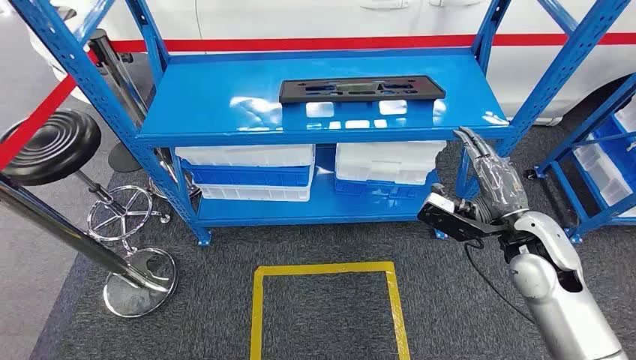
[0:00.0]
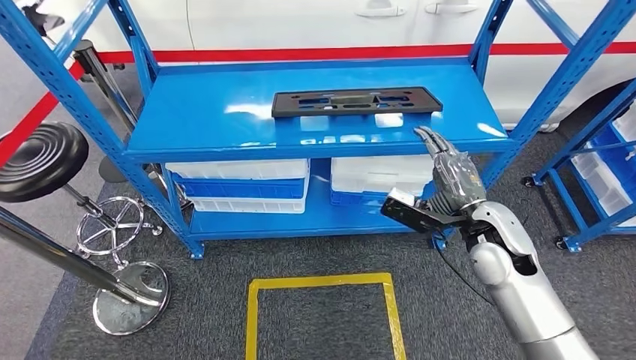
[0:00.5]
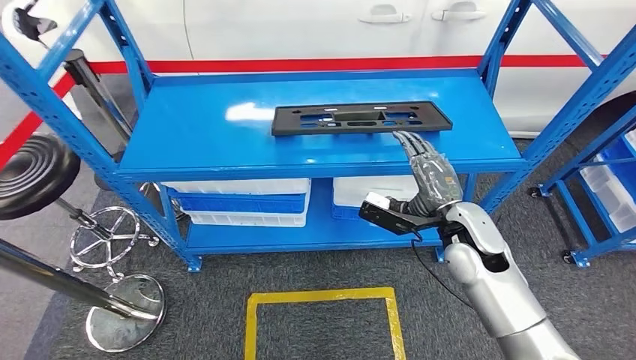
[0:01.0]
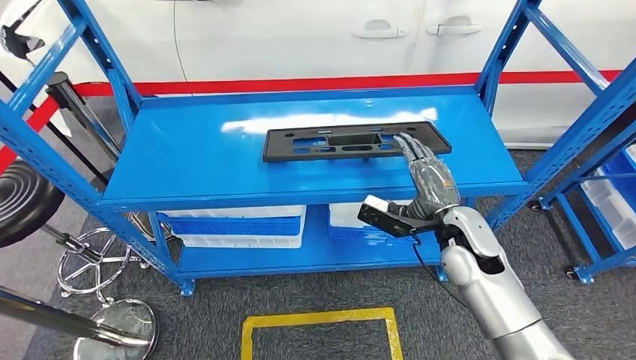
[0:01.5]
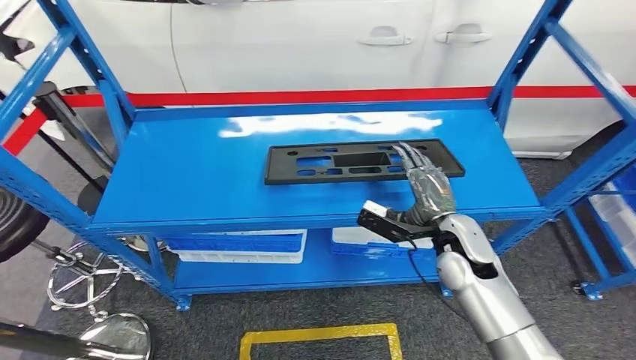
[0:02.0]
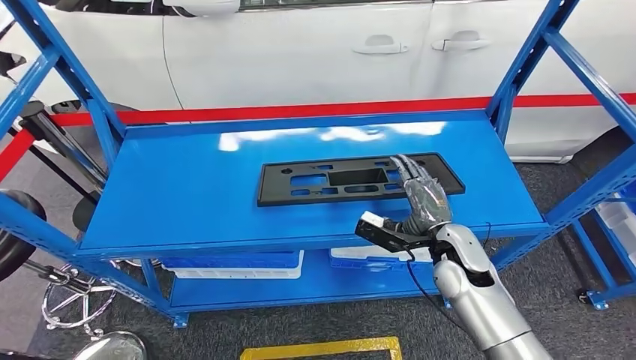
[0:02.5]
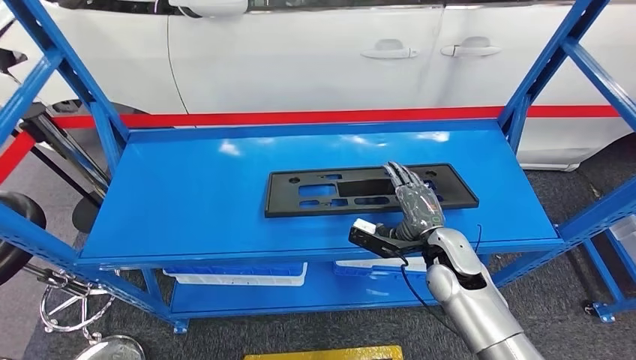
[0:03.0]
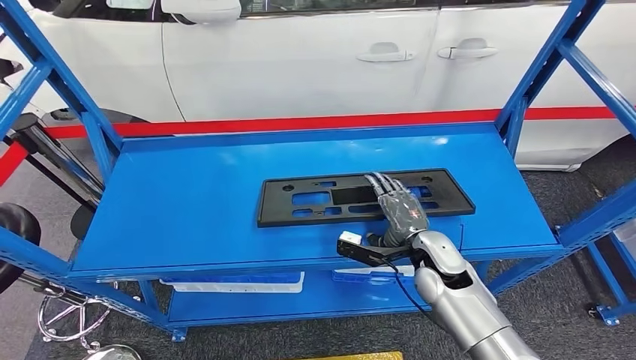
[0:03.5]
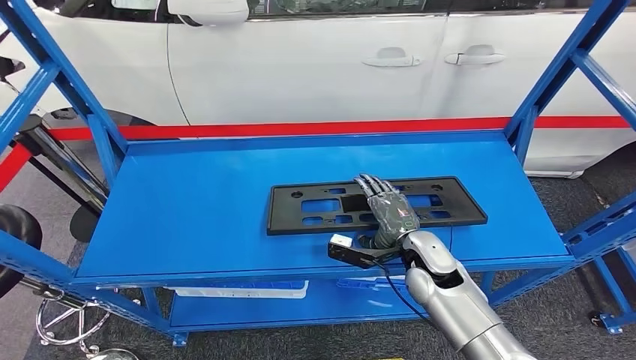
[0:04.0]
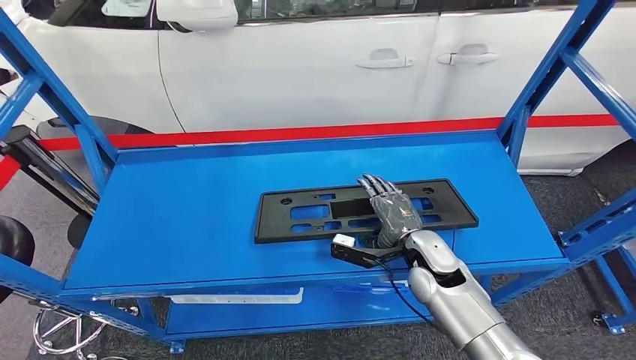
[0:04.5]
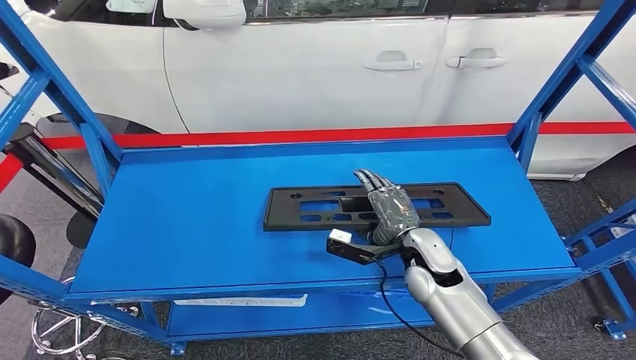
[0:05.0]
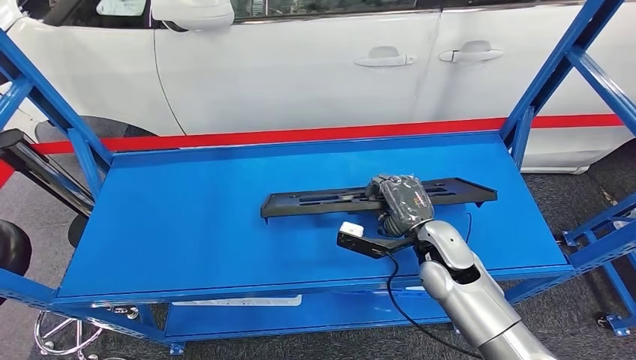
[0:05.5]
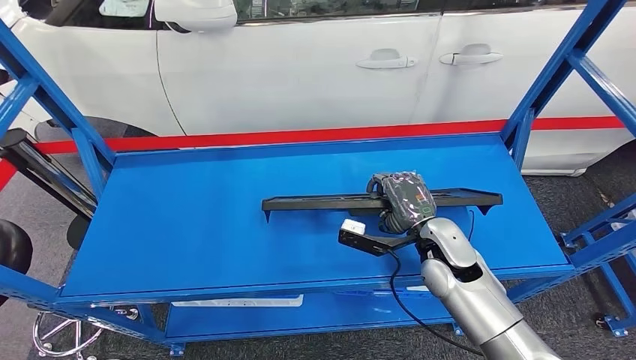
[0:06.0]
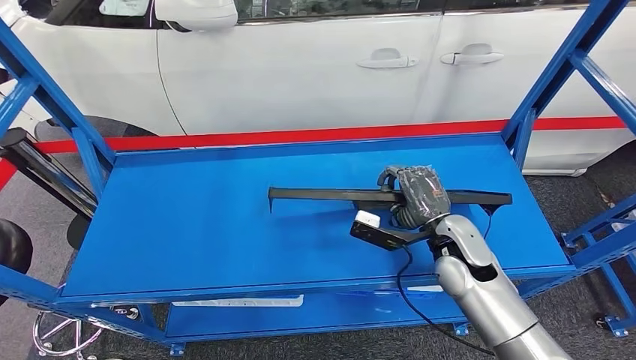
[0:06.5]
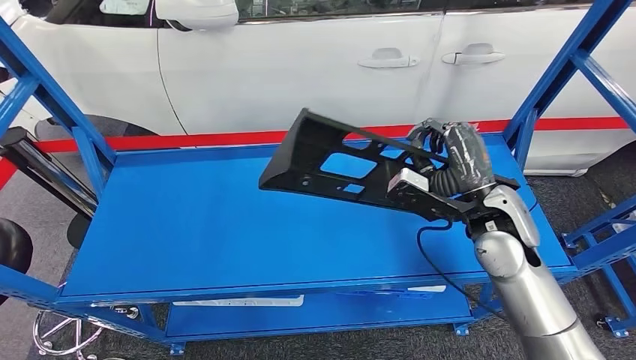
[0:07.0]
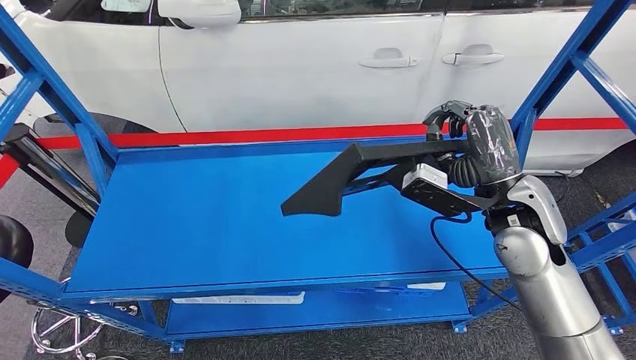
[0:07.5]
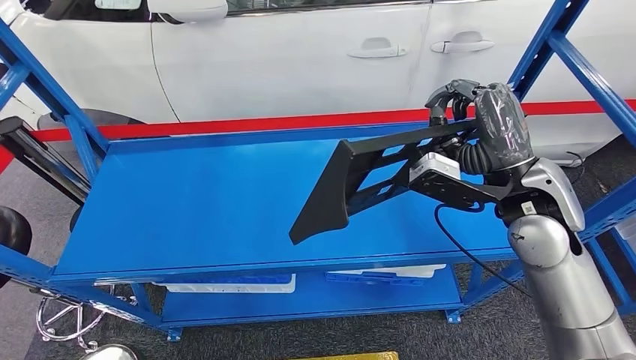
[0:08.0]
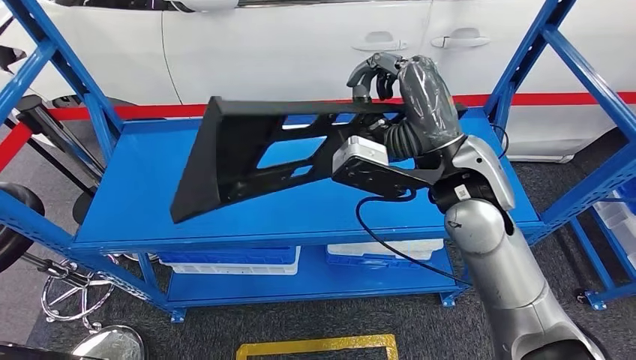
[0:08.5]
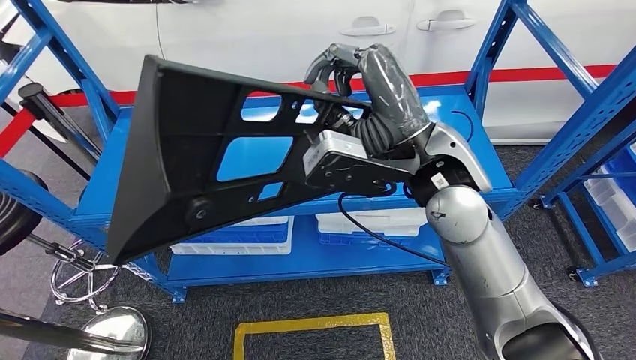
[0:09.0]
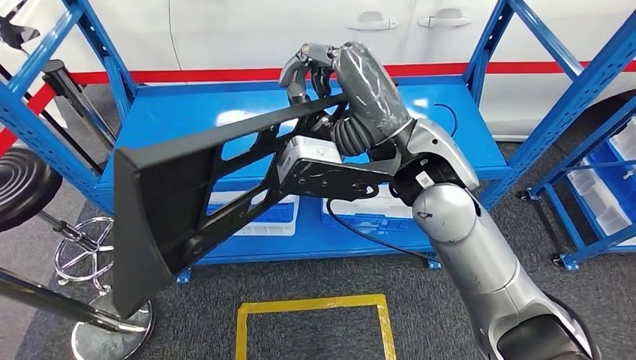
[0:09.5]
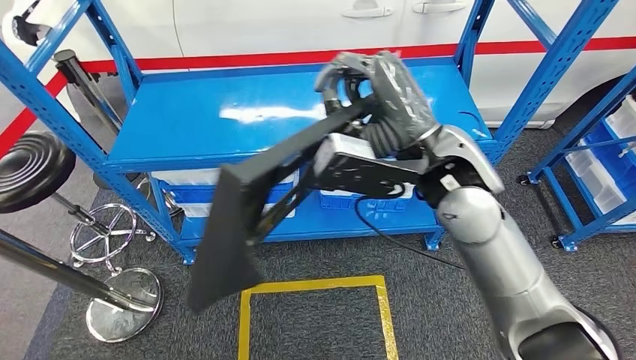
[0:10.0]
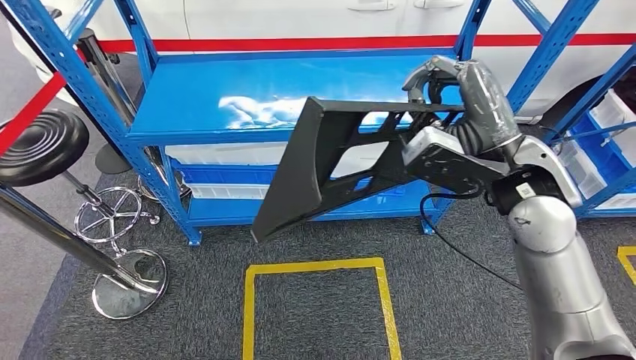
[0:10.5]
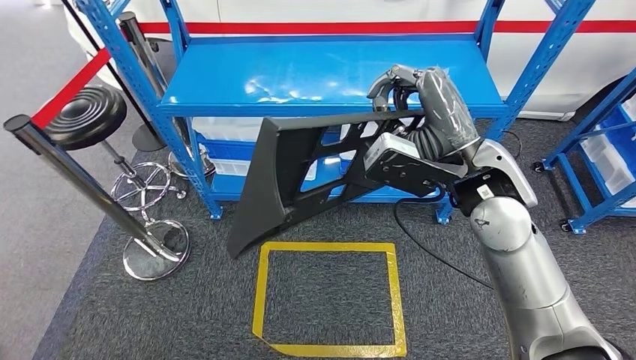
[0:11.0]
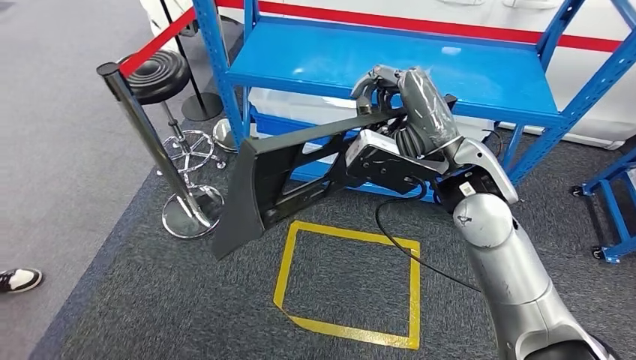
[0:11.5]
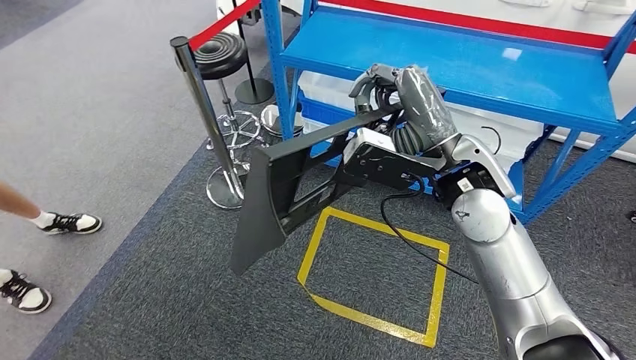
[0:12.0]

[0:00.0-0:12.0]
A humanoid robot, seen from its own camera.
Step, 0:00.0 to 0:08.5: Pick up the large material from the shelf.

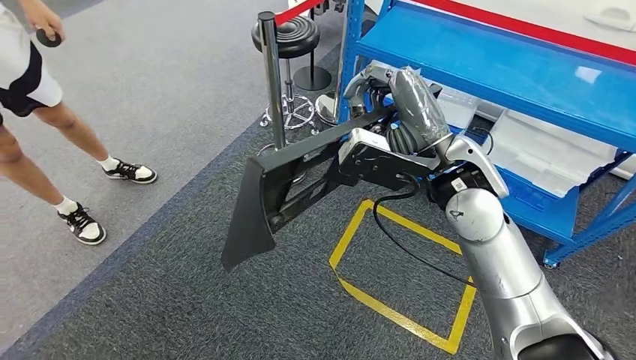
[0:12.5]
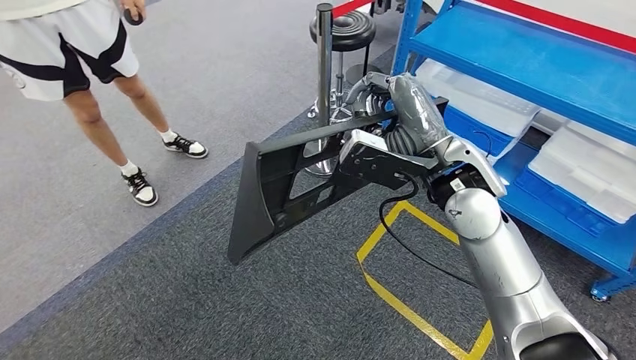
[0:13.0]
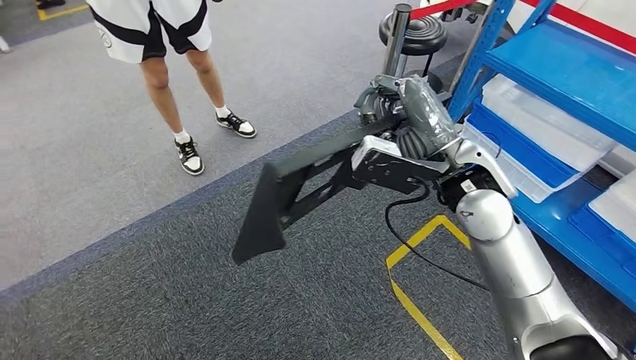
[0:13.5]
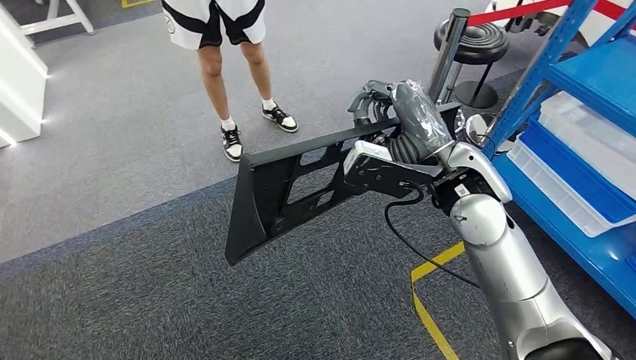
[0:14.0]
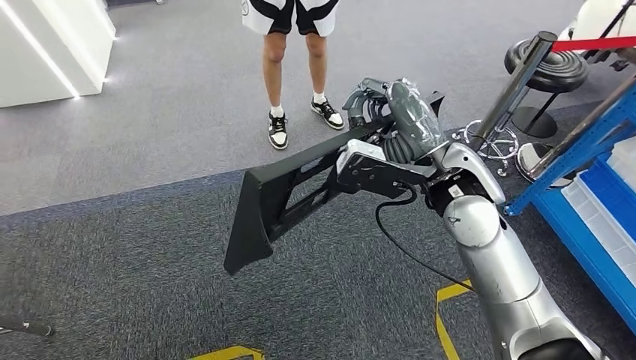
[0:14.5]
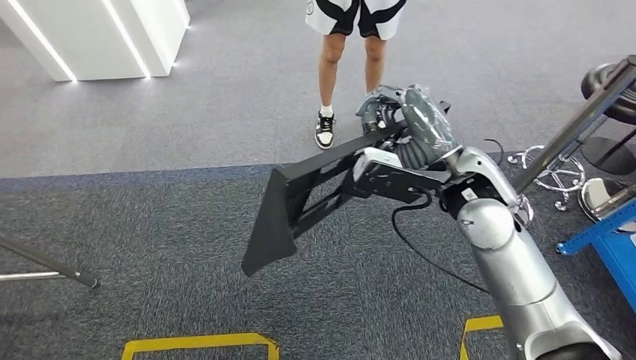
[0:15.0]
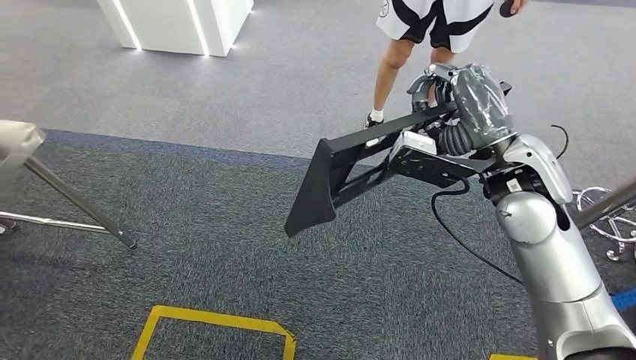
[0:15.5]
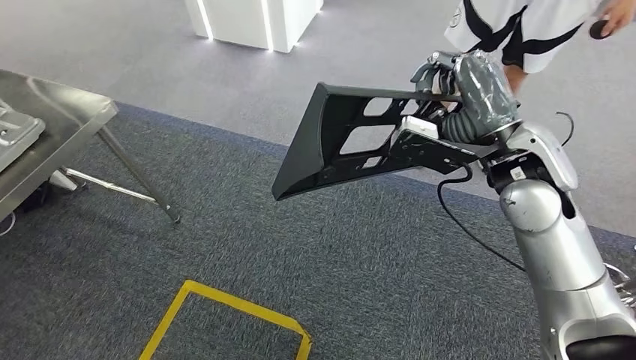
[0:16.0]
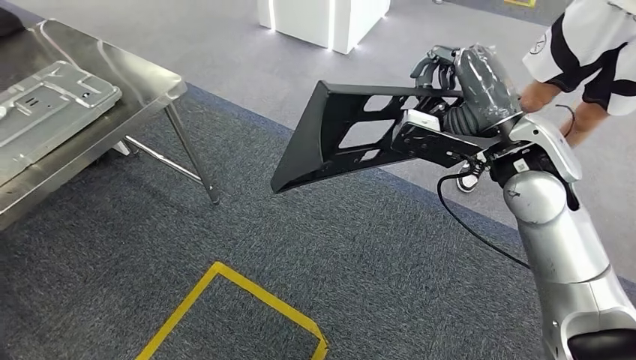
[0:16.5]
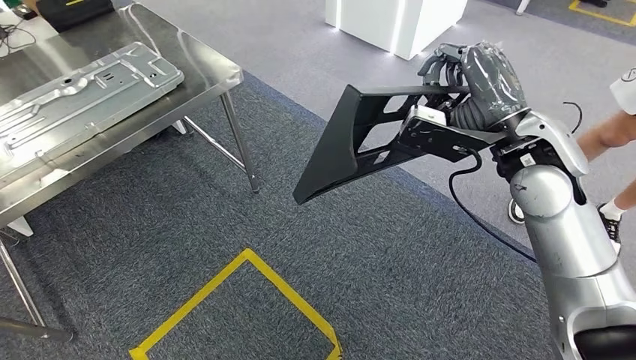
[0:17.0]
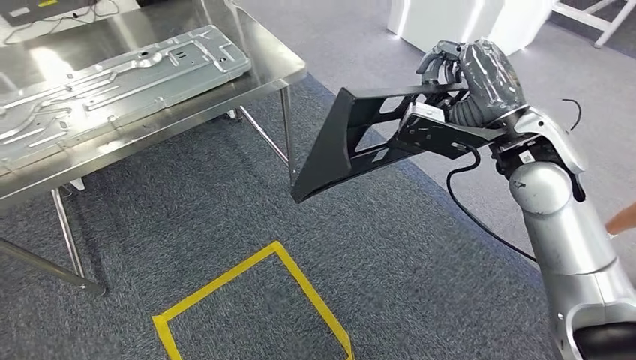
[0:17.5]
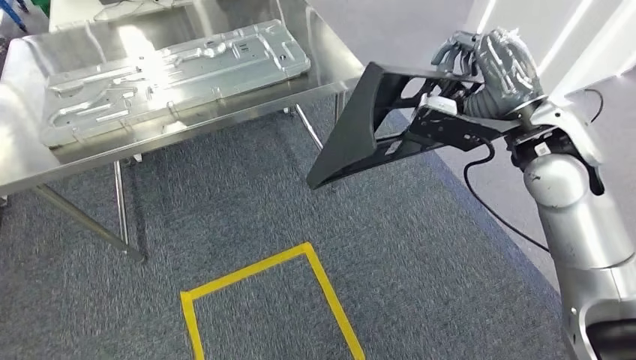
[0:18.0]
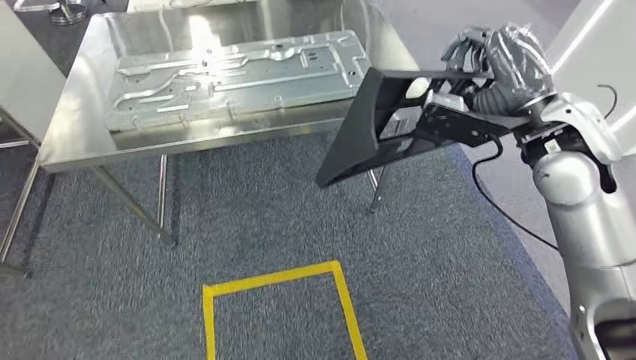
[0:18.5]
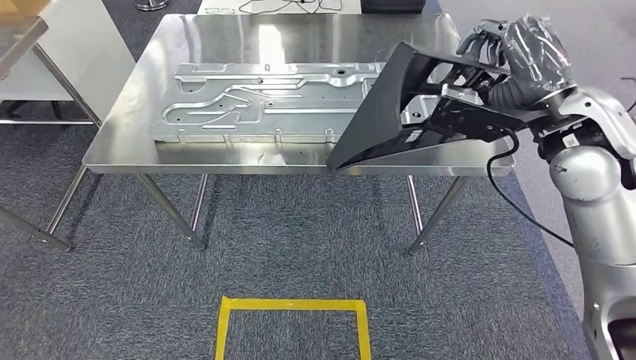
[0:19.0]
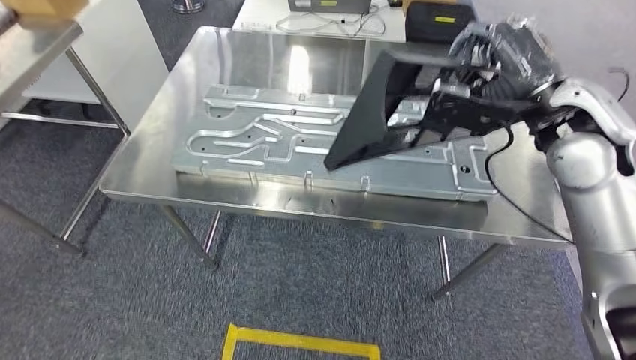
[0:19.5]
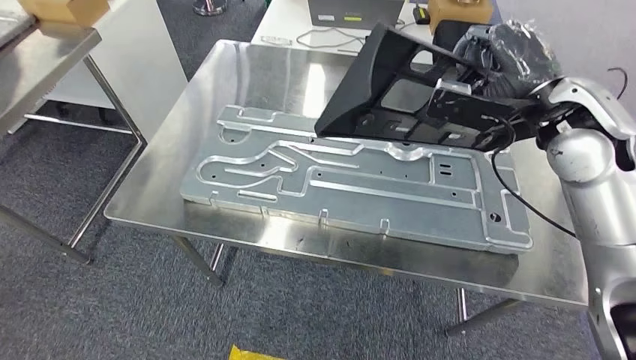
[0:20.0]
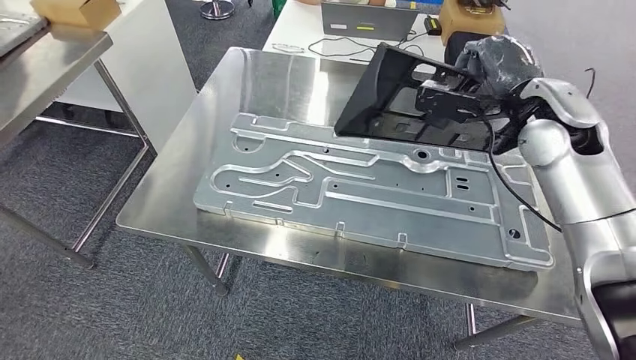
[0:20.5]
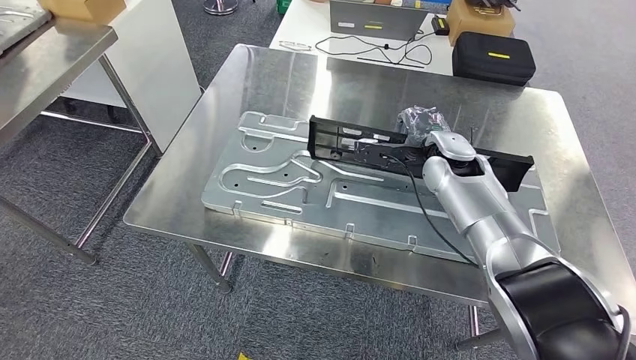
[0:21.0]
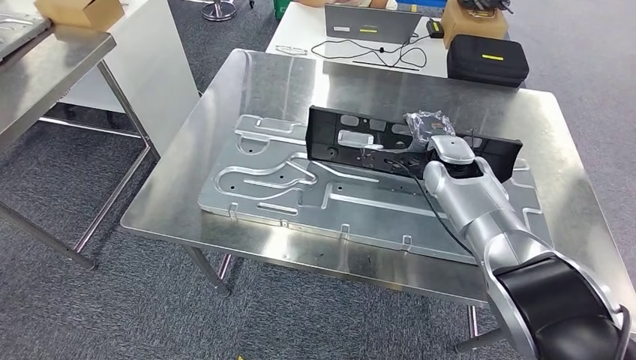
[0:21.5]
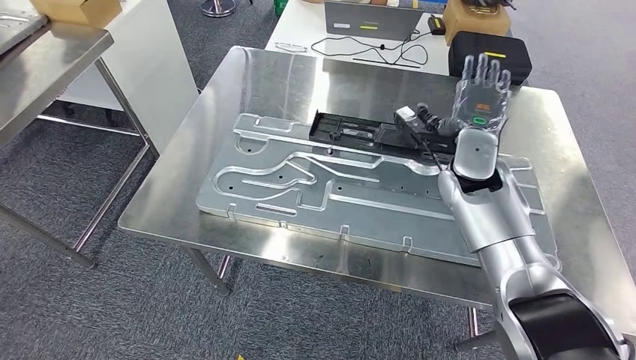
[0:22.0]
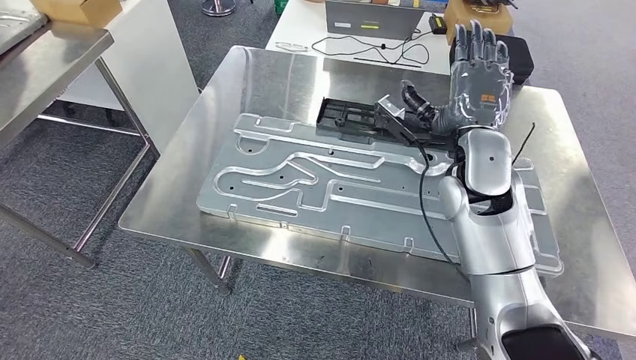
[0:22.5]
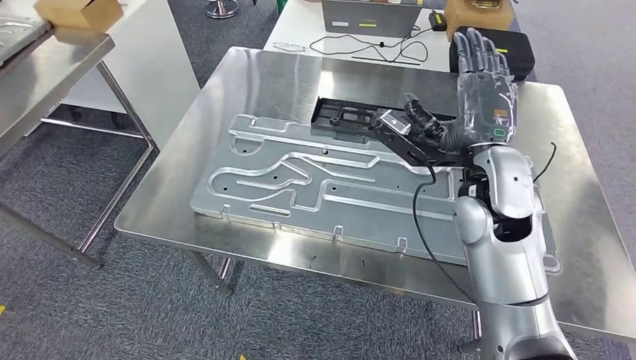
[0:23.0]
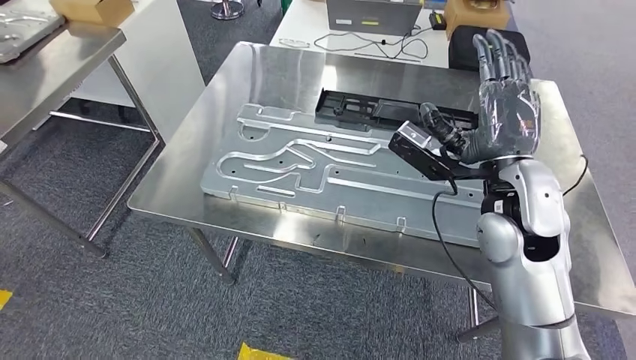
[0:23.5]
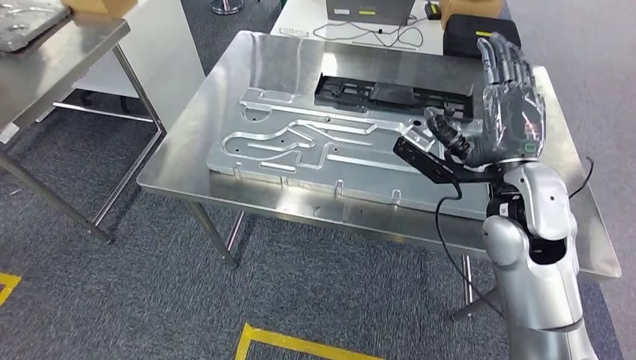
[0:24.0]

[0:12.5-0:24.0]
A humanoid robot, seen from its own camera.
Step, 0:12.5 to 0:19.5: Move the large material to the workbench.
